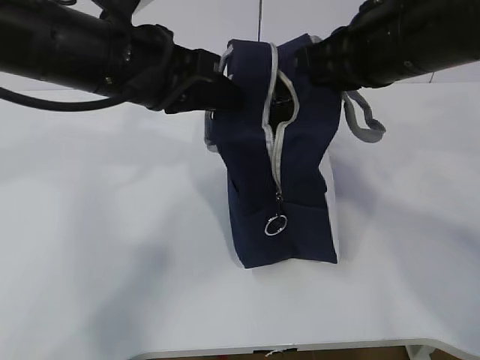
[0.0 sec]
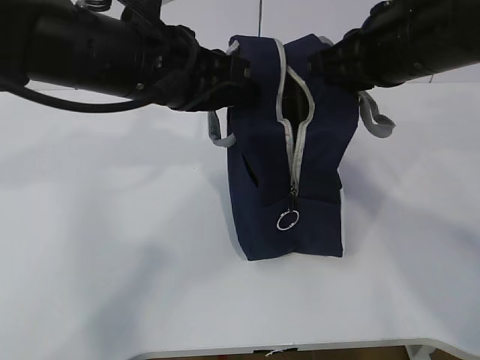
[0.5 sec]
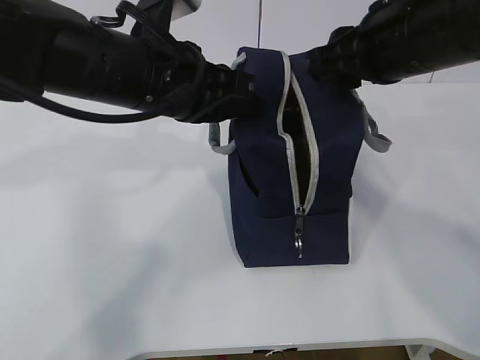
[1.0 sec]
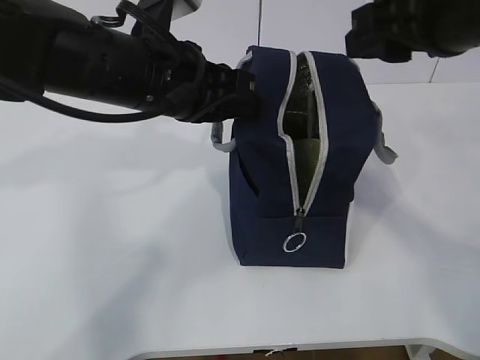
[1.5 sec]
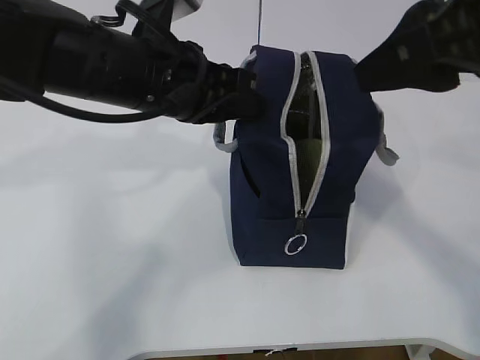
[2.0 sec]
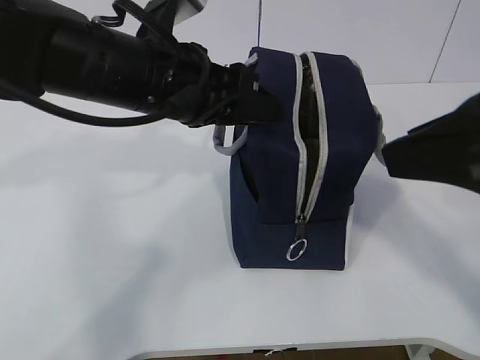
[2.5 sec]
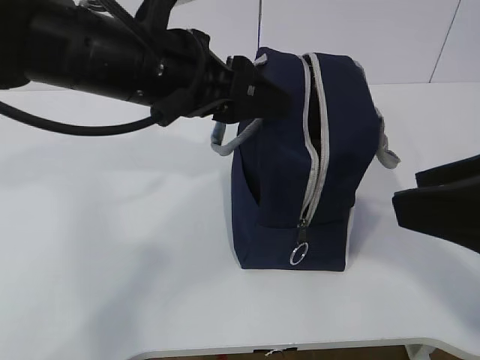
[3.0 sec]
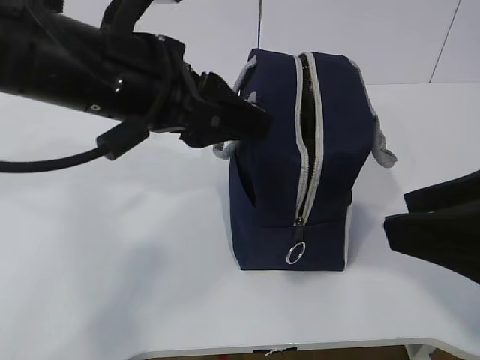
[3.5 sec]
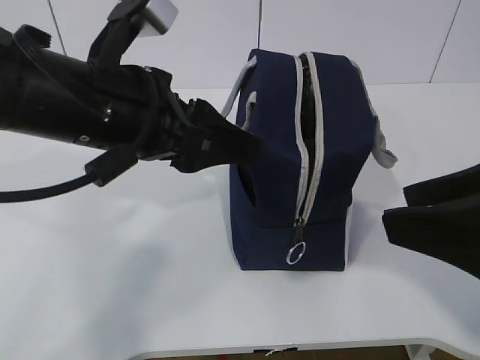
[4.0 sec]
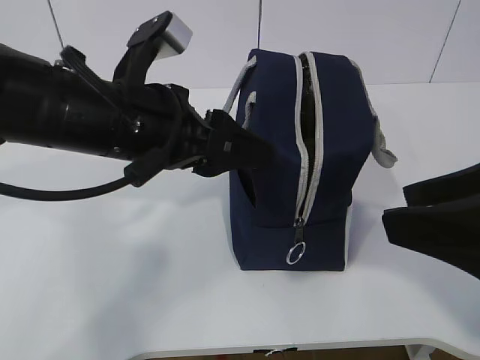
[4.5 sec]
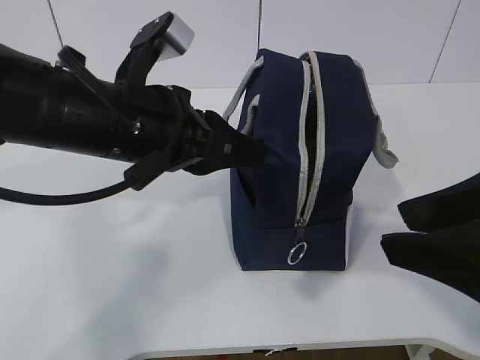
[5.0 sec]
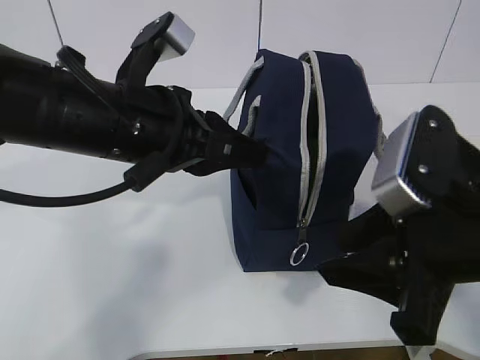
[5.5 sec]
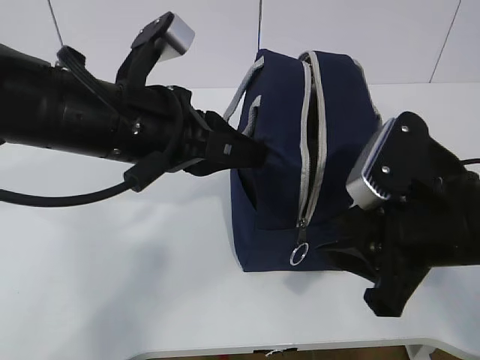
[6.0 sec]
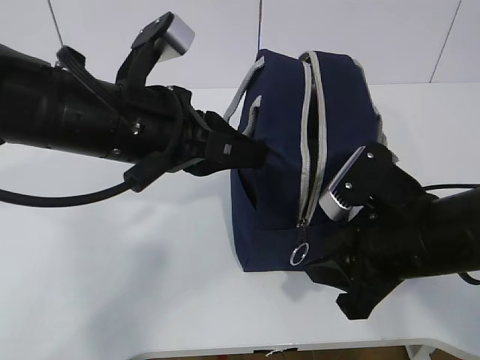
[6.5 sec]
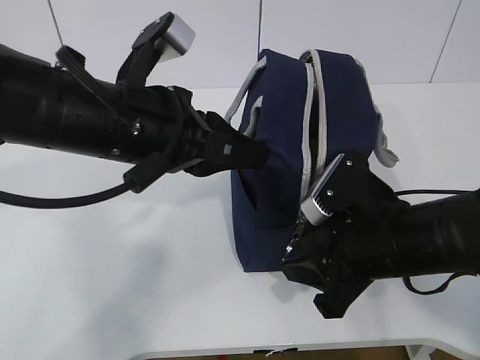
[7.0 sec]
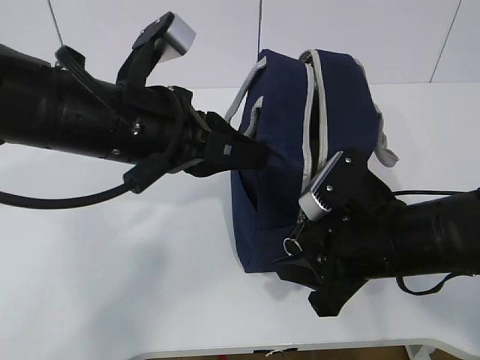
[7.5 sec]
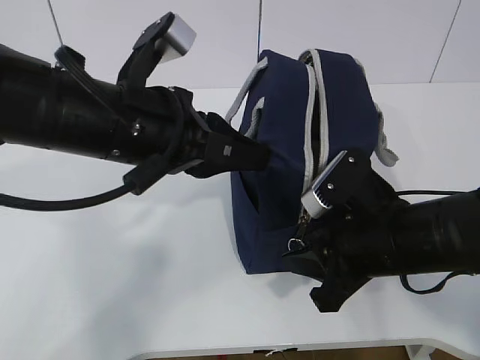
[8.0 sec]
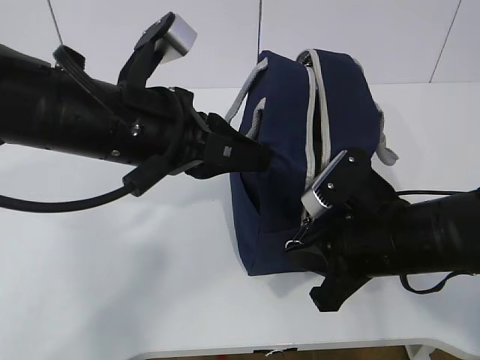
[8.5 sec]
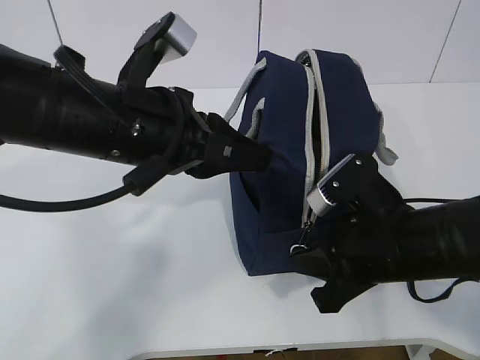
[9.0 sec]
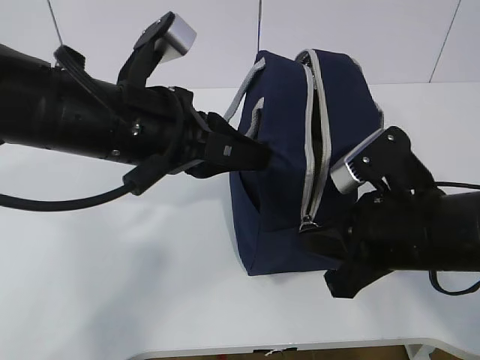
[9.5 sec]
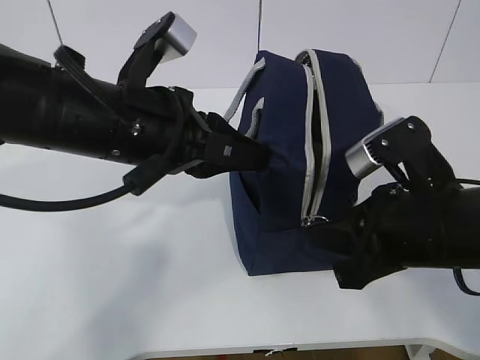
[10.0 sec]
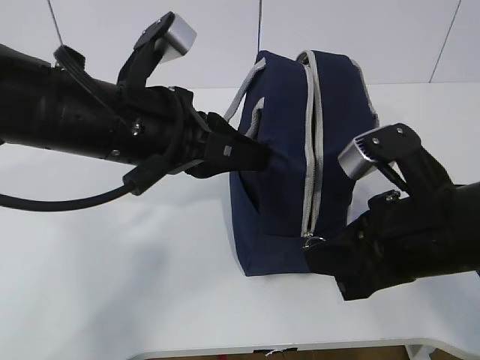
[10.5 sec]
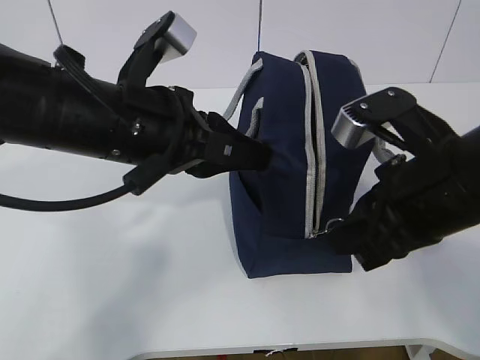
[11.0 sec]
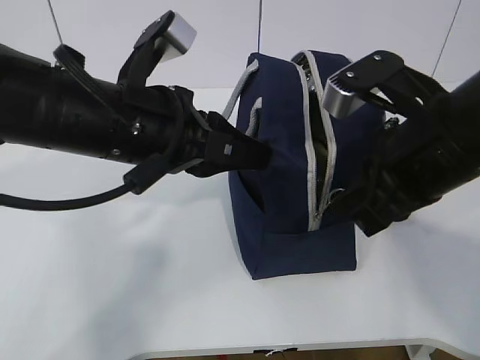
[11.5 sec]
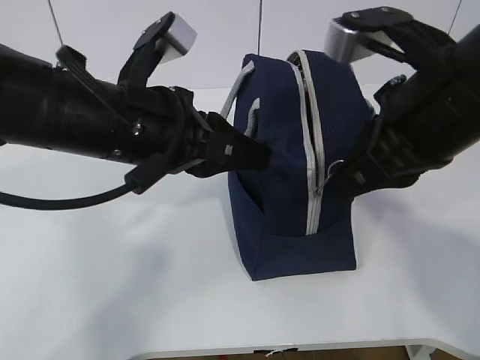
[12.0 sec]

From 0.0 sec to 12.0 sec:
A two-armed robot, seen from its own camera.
Step, from 0.0 sec to 11.5 sec: Pull the zipper with your right hand.
From 0.0 sec to 2.0 sec: The right gripper travels backward and upward by roughly 10 cm, and opens its fingers.
From 2.0 sec to 4.0 sec: The left gripper travels backward by some 5 cm, and opens. Meanwhile the right gripper shifts approximately 10 cm backward and downward.
From 4.0 sec to 6.0 sec: The right gripper goes about 10 cm downward and forward, while the left gripper closes up.
From 6.0 sec to 8.0 sec: The right gripper shifts about 5 cm downward.
From 8.0 sec to 10.0 sec: The right gripper shifts by some 5 cm, and closes its fingers.
From 10.0 sec to 12.0 sec: The right gripper travels upward by about 10 cm.

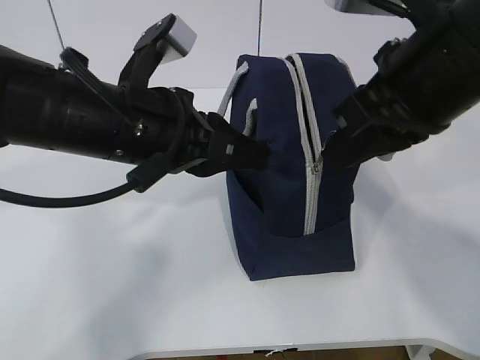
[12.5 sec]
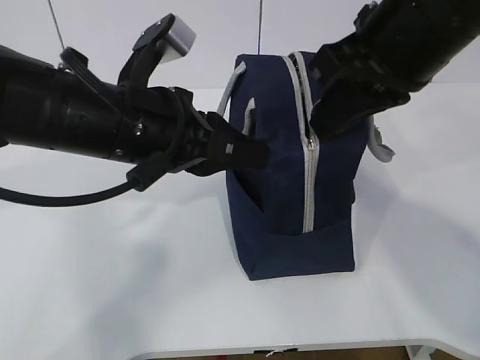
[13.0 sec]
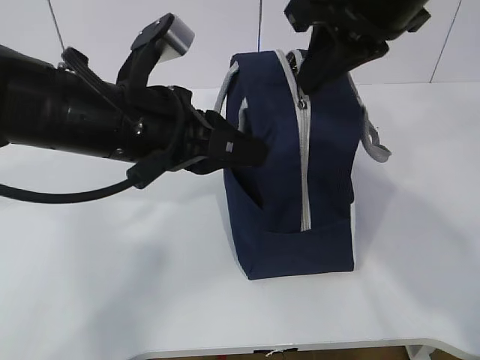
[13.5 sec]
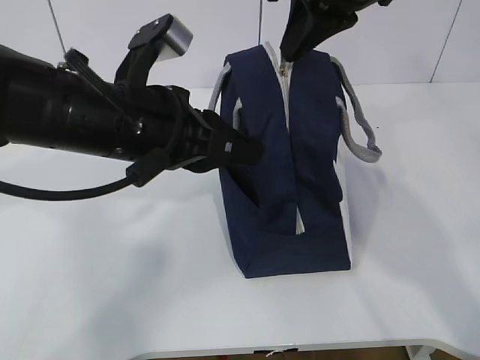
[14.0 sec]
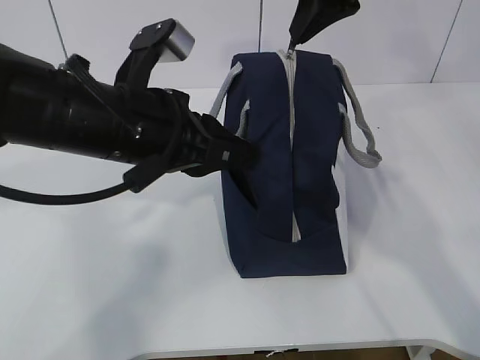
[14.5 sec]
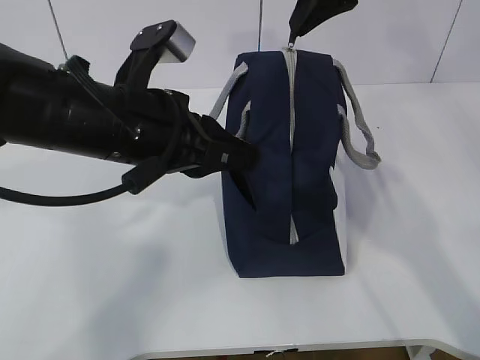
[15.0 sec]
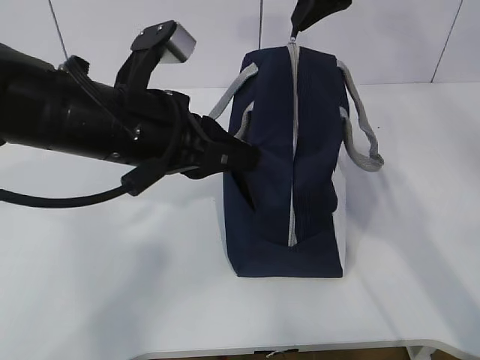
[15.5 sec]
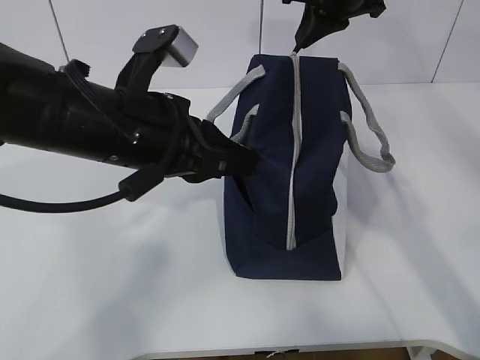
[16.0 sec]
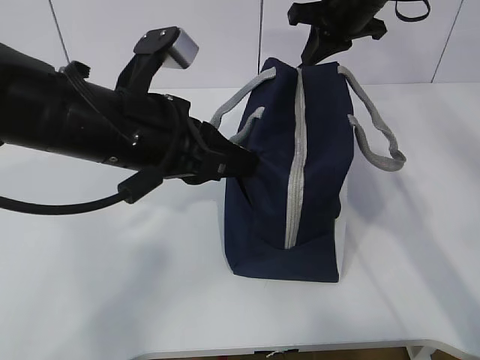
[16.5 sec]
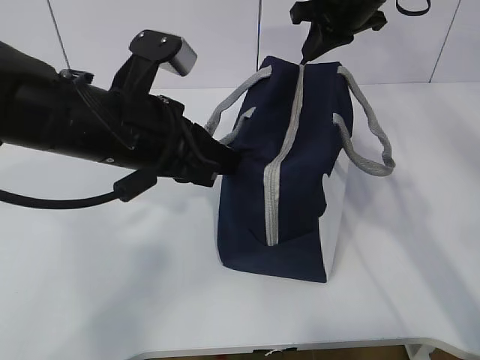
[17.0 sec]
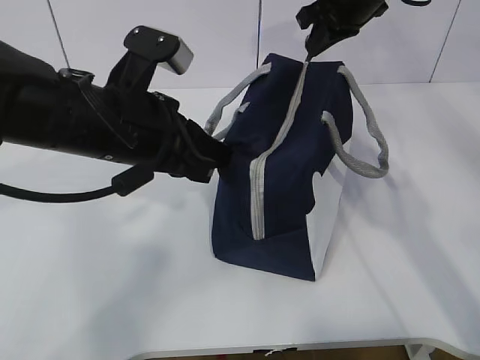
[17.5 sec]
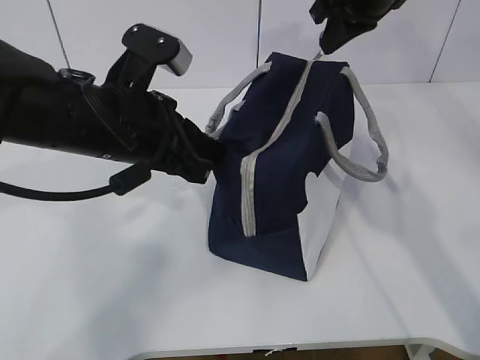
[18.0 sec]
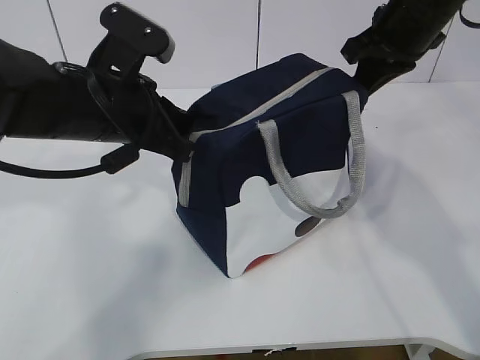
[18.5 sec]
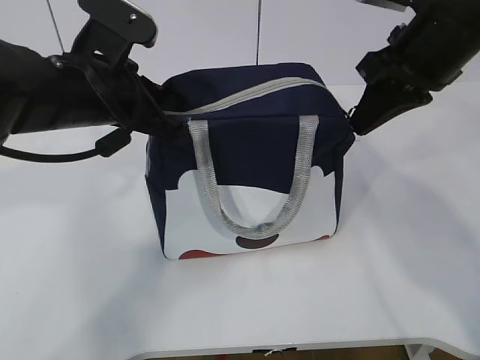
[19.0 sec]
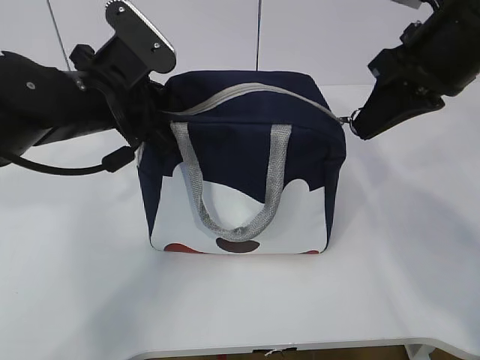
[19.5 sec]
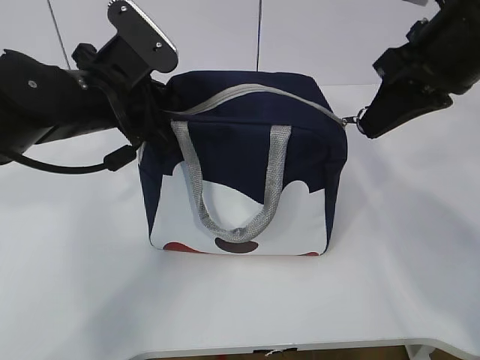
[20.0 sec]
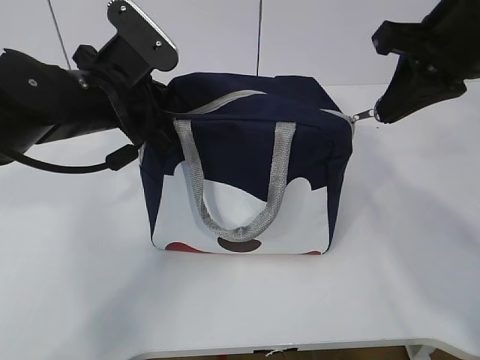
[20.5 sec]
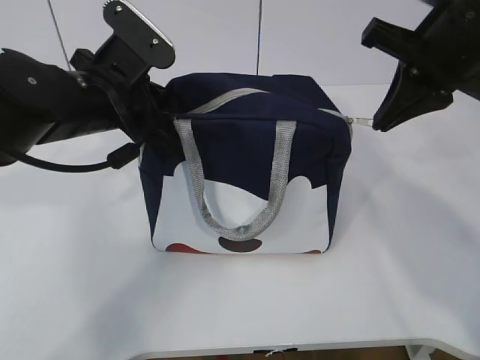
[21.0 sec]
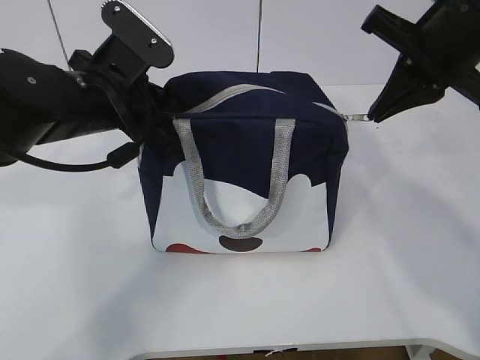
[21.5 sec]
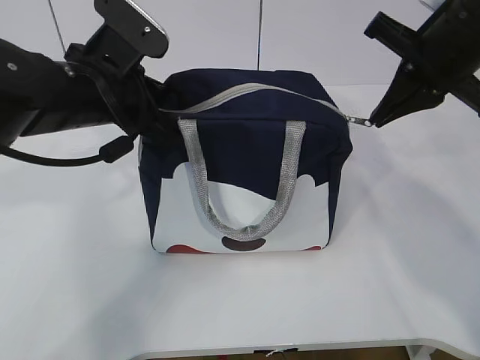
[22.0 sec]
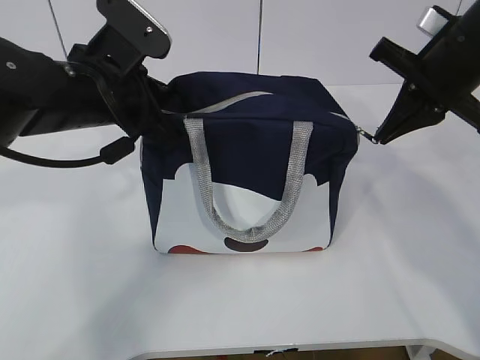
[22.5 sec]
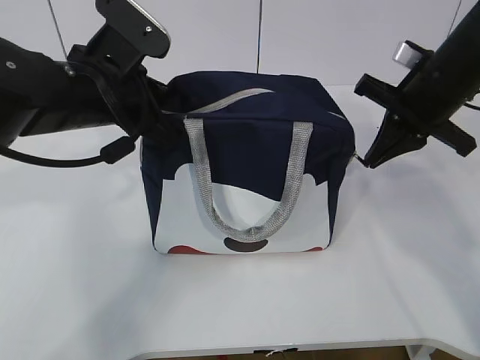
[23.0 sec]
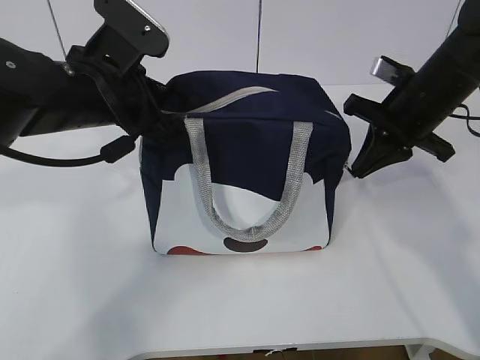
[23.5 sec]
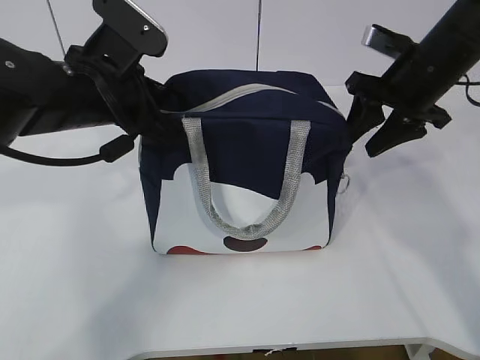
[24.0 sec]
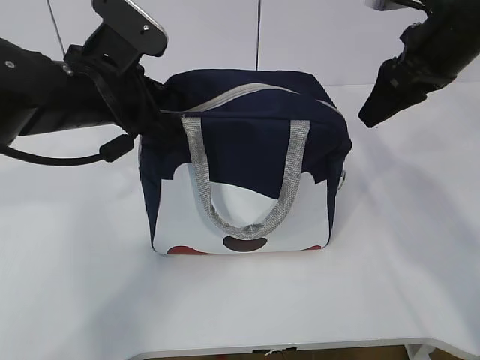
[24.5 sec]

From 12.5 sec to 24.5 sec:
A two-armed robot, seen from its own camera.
From 12.5 sec to 14.5 sec: The right gripper heads forward, covering roughly 15 cm.
From 14.5 sec to 16.5 sec: The right gripper moves forward and downward, about 15 cm.
From 16.5 sec to 18.5 sec: The right gripper heads backward, covering roughly 10 cm.
From 18.5 sec to 20.5 sec: The right gripper heads backward, covering approximately 10 cm.
From 20.5 sec to 22.5 sec: The right gripper ends up about 5 cm from where it was.
From 22.5 sec to 24.5 sec: The right gripper moves some 5 cm downward and comes back, and opens up.

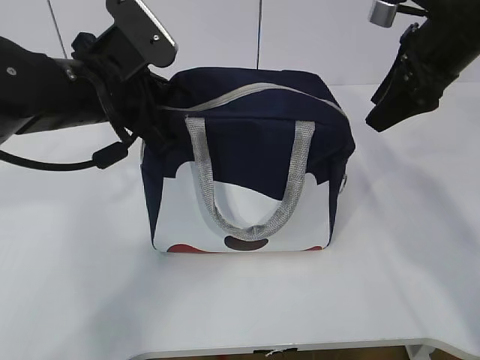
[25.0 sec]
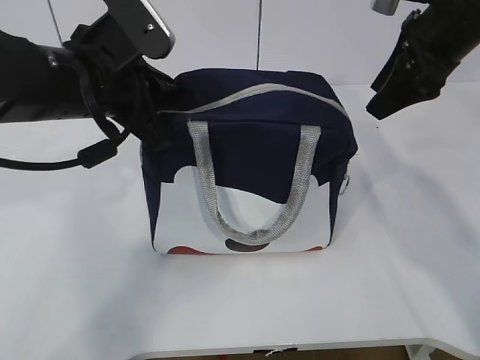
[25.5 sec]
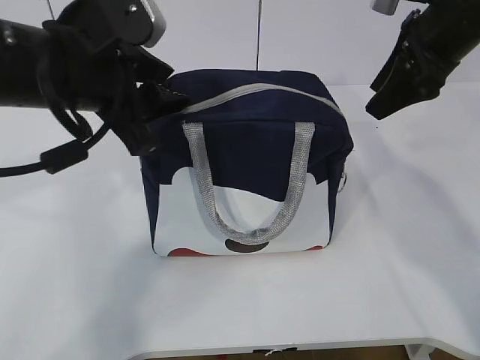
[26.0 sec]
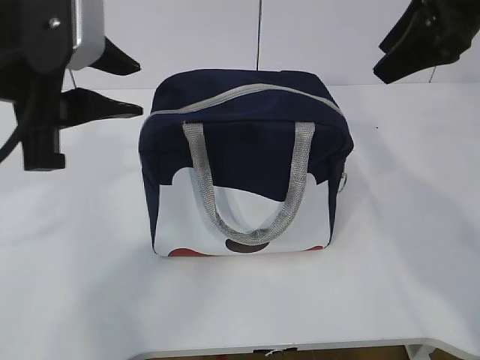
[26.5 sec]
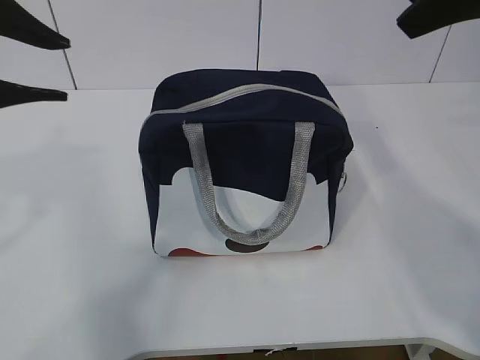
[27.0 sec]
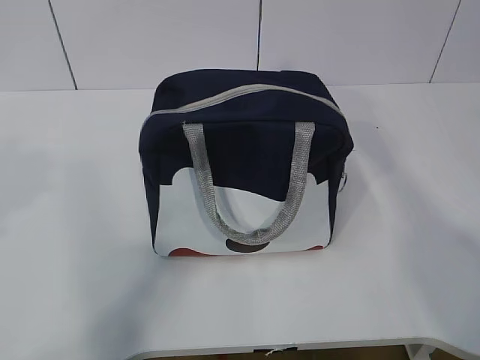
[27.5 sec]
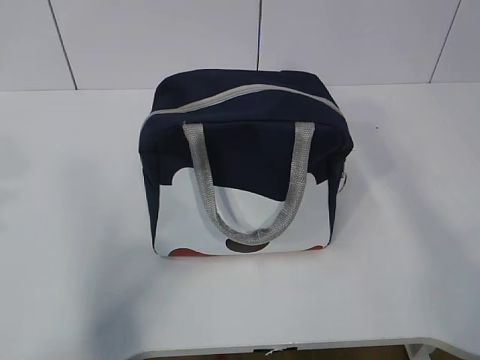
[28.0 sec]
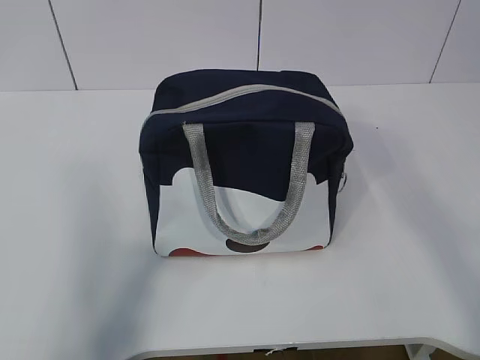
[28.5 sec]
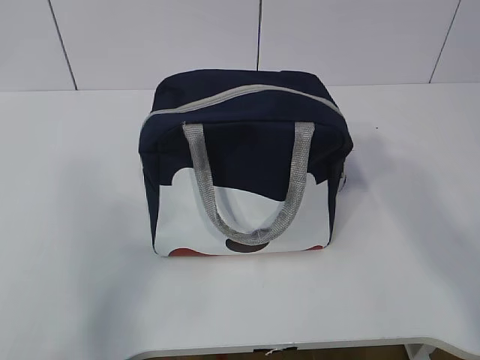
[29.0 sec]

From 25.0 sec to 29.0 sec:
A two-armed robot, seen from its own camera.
From 25.0 sec to 27.0 sec: The right gripper heads upward and backward, covering roughly 15 cm; the left gripper heads backward, upward and to the left, covering about 20 cm, and opens.
From 27.0 sec to 29.0 sec: The left gripper shifts some 20 cm backward and to the left; the right gripper goes about 20 cm backward.
